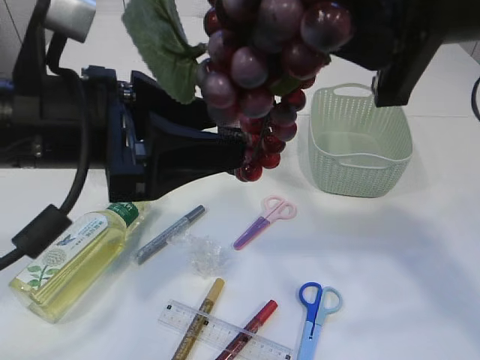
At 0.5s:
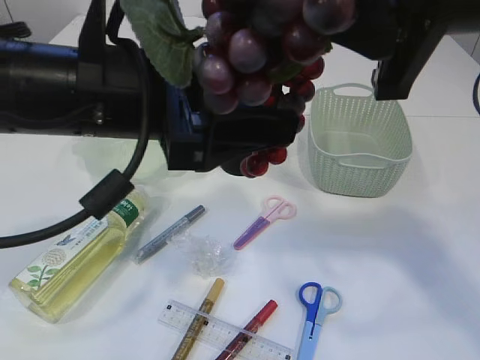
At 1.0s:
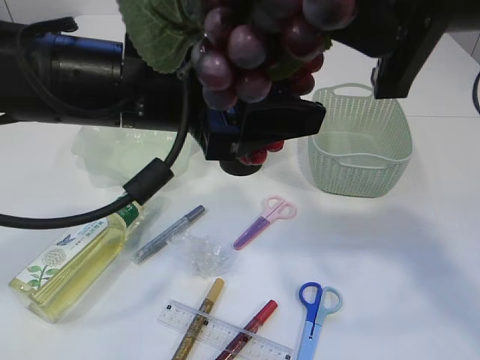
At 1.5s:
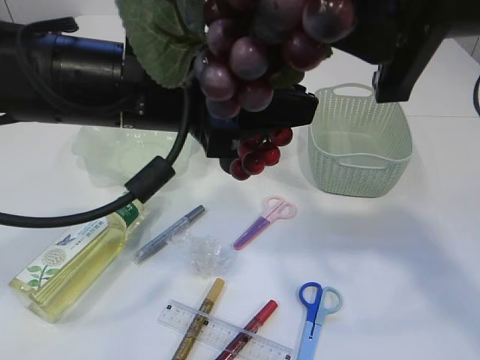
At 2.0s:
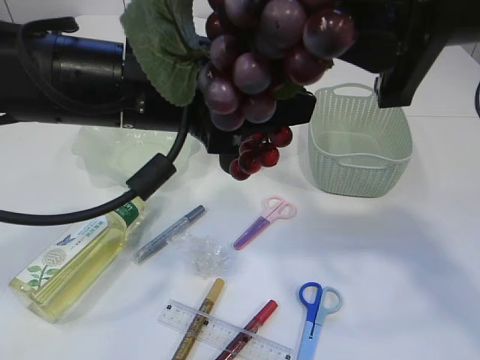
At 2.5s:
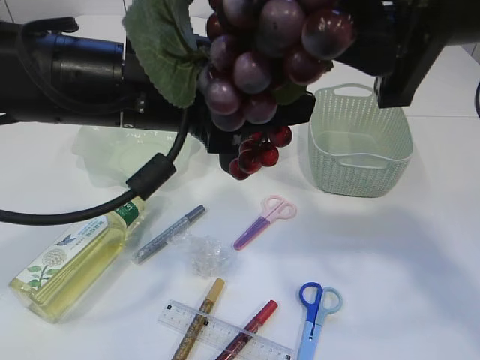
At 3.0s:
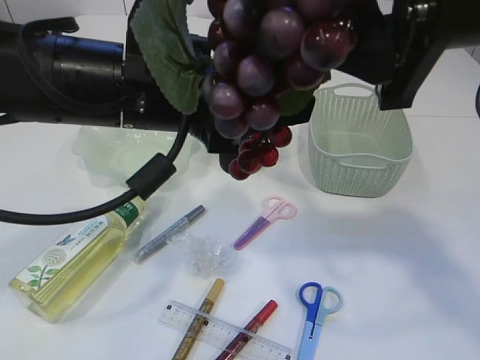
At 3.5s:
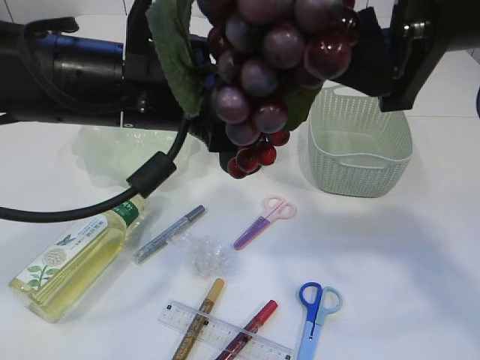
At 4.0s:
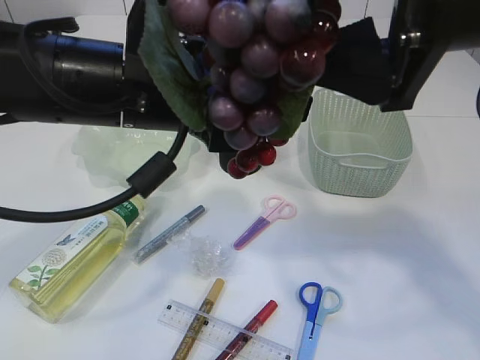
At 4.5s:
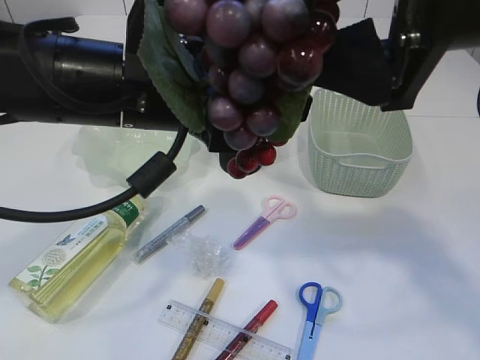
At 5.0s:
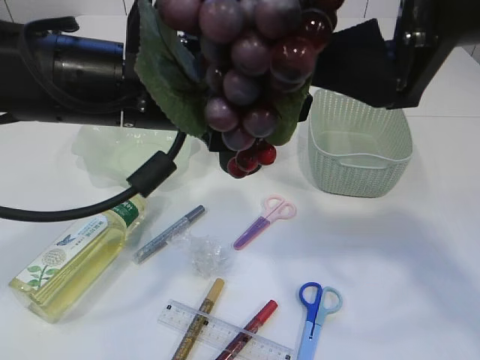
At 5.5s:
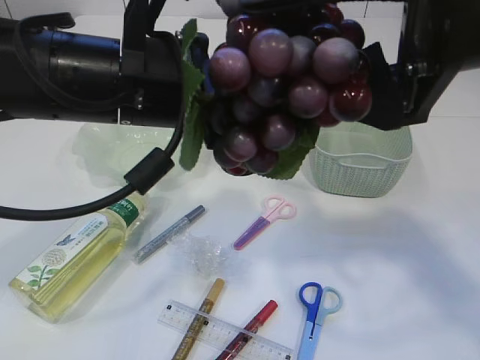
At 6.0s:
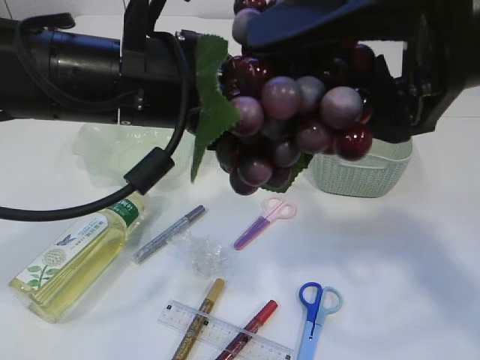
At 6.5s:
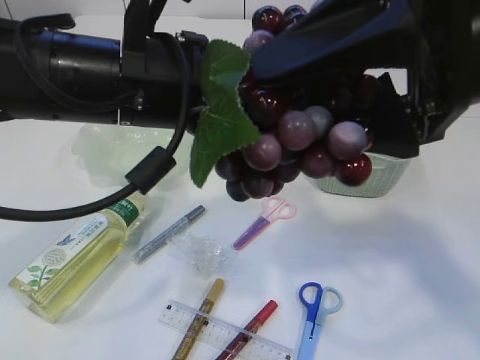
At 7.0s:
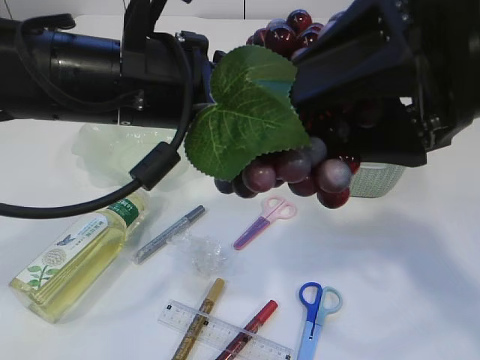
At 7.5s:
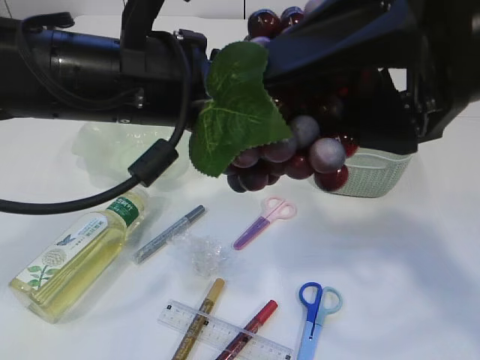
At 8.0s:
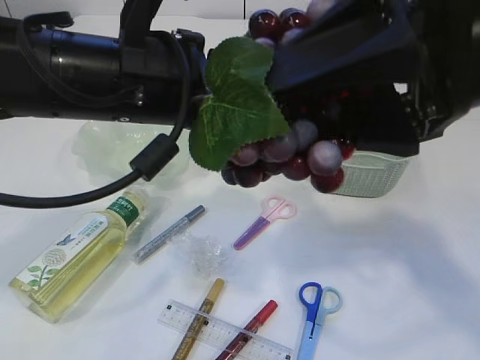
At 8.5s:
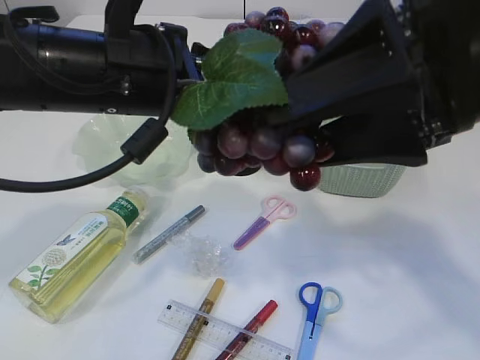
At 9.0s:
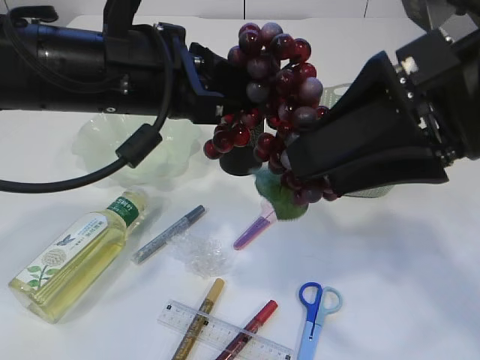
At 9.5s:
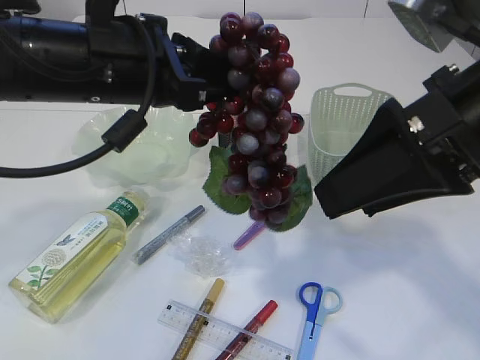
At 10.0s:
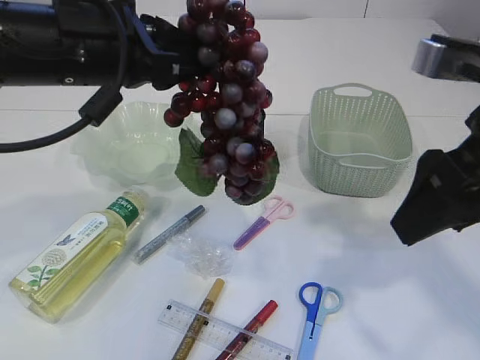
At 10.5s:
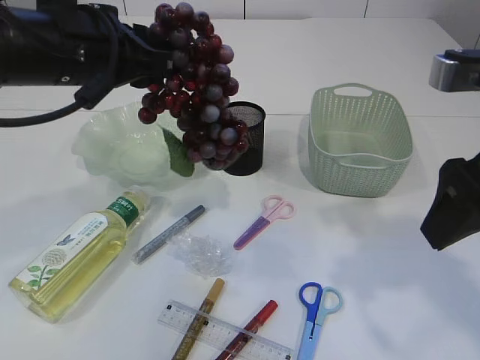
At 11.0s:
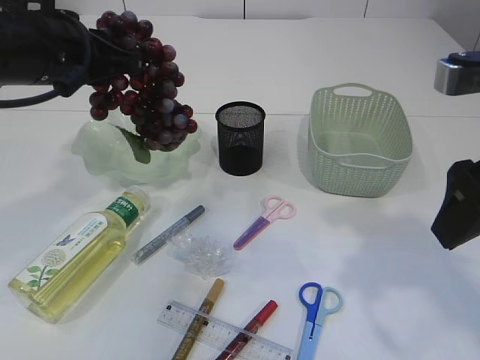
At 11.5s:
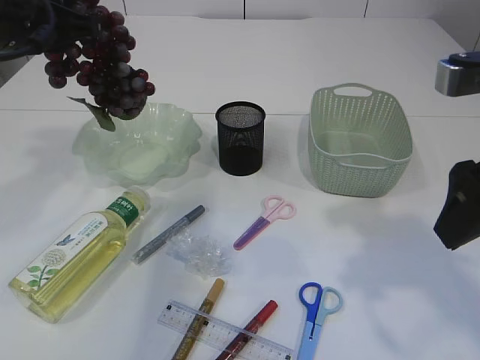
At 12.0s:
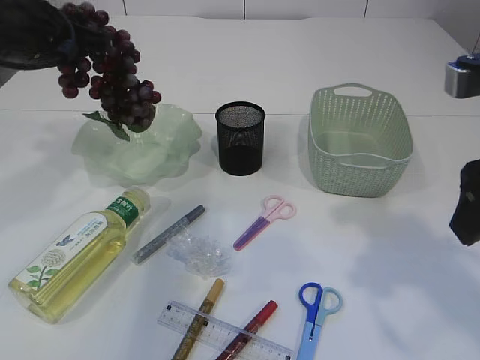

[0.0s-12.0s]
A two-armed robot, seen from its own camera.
Step, 0.0s to 9.5s: Hand over the grapes.
0.0s to 2.0s: The left gripper moves to the right, roughly 5 cm, and closes up.
2.0s to 4.0s: The right gripper opens its fingers.
4.0s to 8.0s: The grippers move only a little.
8.0s to 10.0s: The right gripper is displaced downward by some 5 cm; the left gripper shifts by some 5 cm.
10.0s to 12.0s: The left gripper travels forward and to the left by some 15 cm.

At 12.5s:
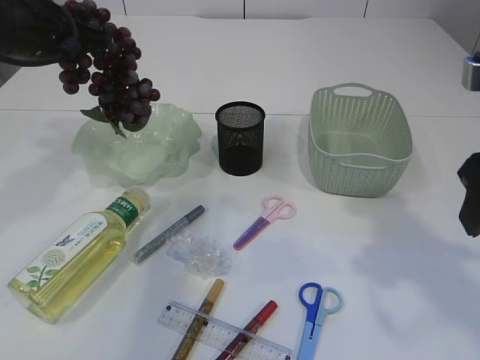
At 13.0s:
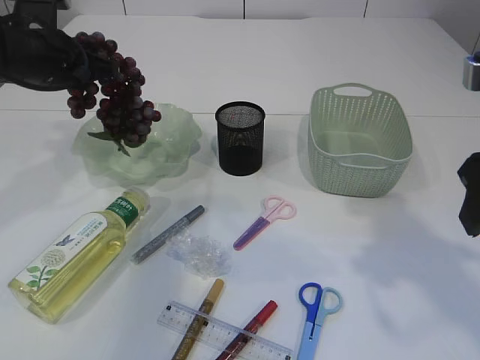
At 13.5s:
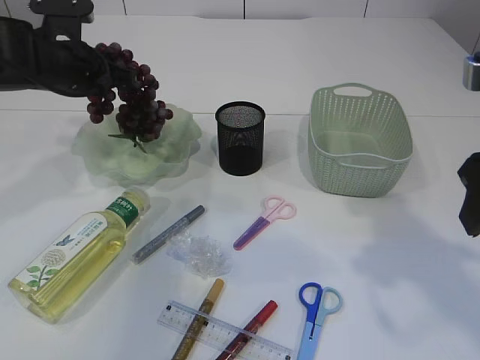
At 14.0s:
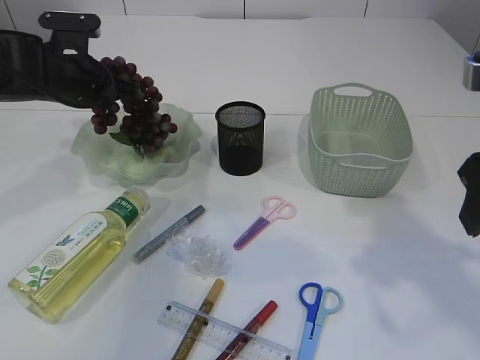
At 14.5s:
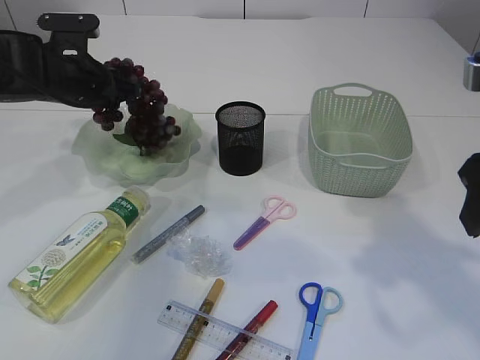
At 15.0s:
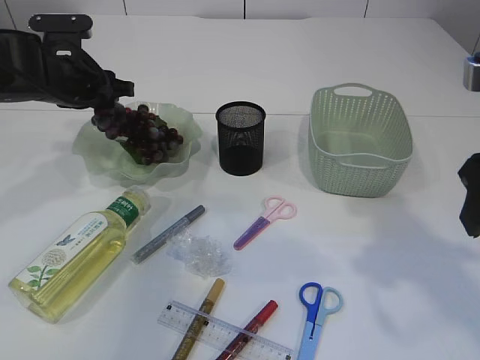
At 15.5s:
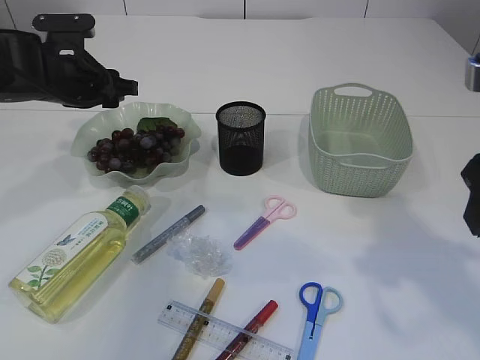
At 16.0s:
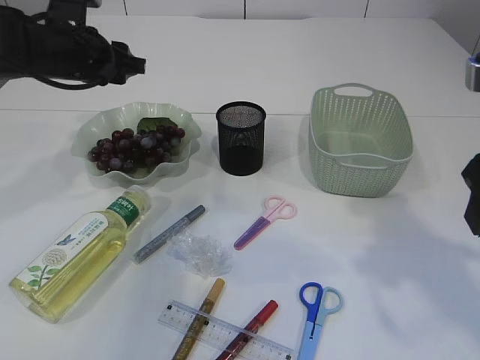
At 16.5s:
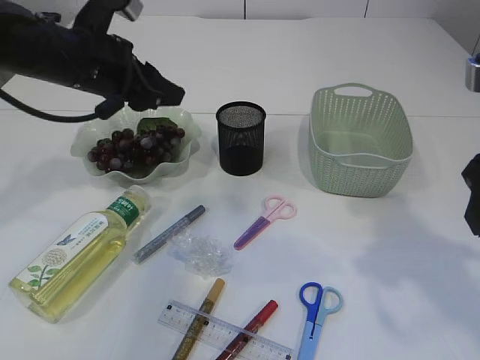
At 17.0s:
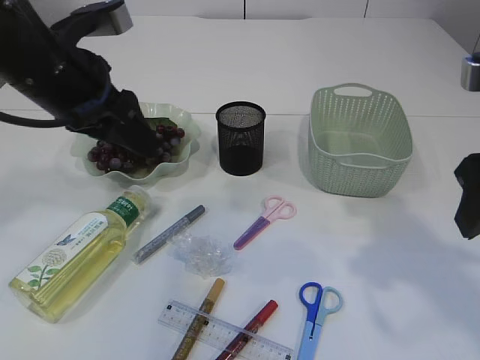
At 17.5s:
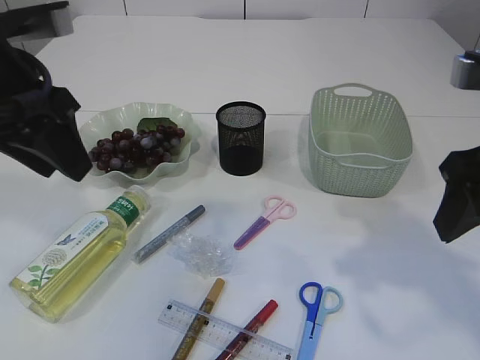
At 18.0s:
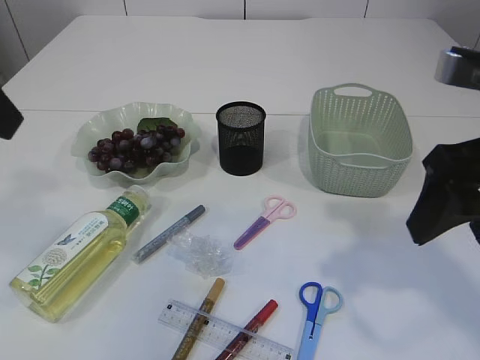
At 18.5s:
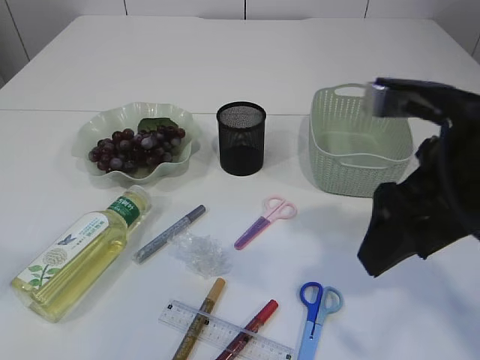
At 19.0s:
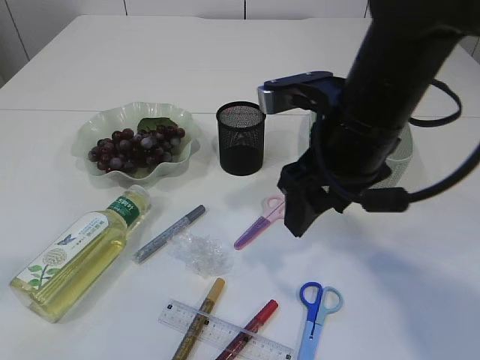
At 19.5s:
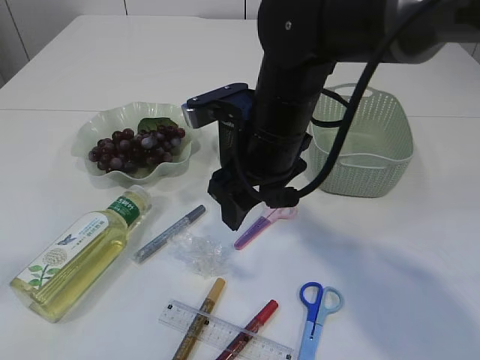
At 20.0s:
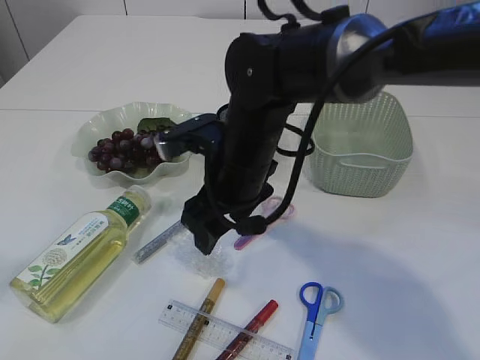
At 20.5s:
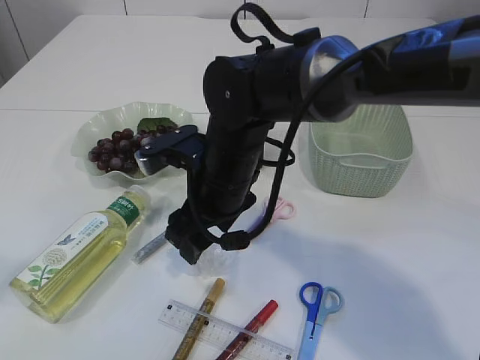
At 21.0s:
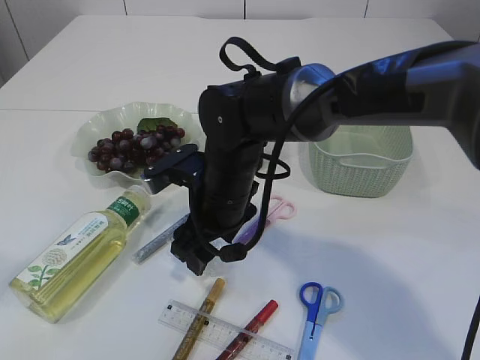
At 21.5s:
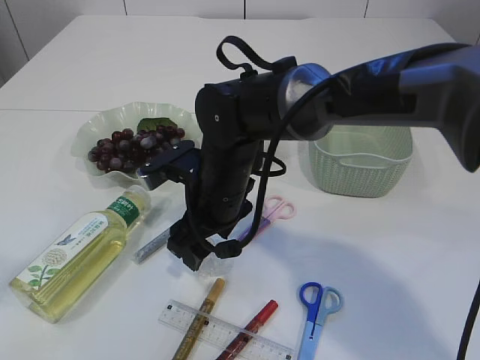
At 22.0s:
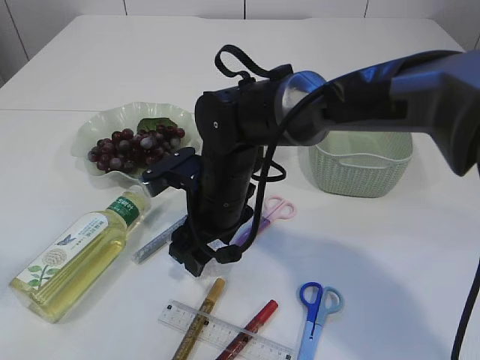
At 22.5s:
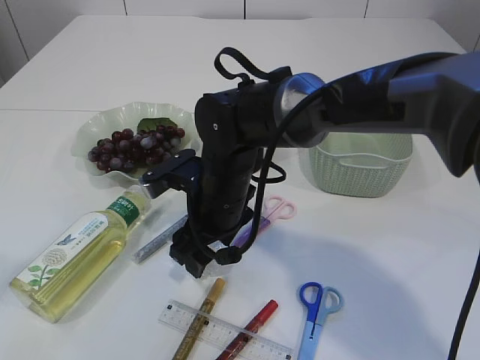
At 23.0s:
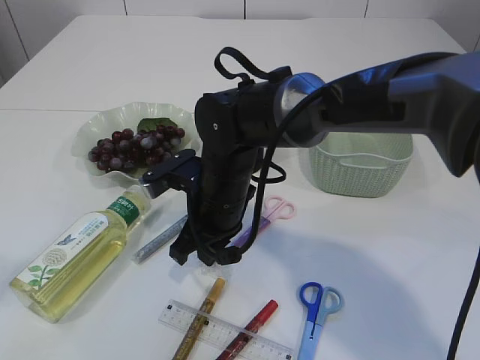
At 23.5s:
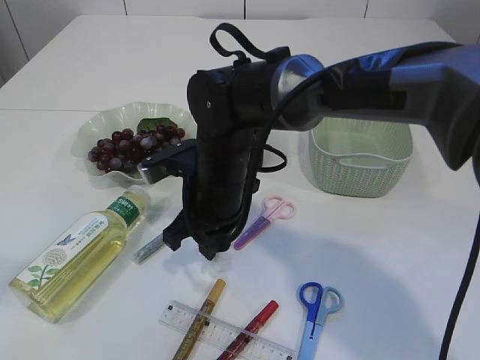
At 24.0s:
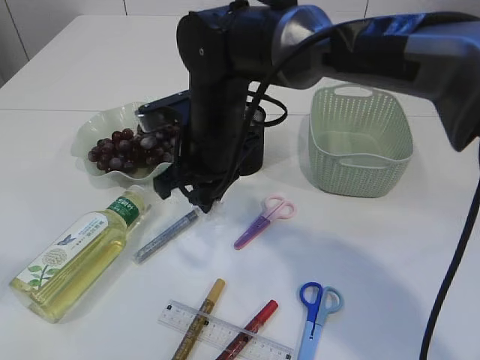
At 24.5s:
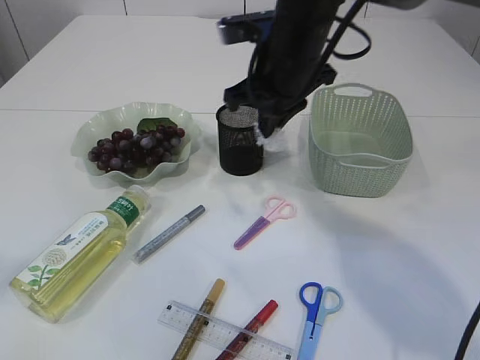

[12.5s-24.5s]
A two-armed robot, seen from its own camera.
Step, 12.5s to 17.5s: Place the grapes in the plate.
Step, 18.0s to 23.5s: Pick up the plastic.
12.5s to 14.5s: The left gripper moves downward, some 10 cm, and opens its fingers.
14.5s to 16.5s: The left gripper is displaced backward and upward by roughly 10 cm.
16.5s to 18.5s: The left gripper travels backward and upward by roughly 30 cm, while the right gripper is displaced to the left by approximately 5 cm.
18.5s to 20.5s: The right gripper is displaced to the left, forward and downward by roughly 25 cm.
20.5s to 22.5s: The grippers stay close to where they were, moving slightly.
22.5s to 24.5s: The right gripper goes some 15 cm upward, to the right and forward, and closes.

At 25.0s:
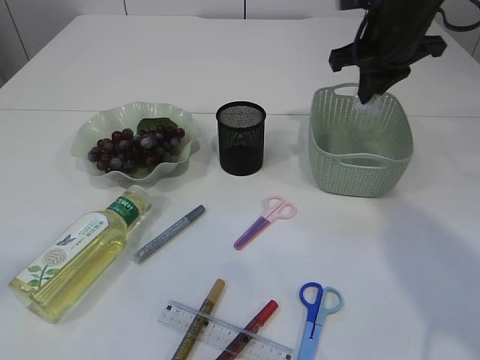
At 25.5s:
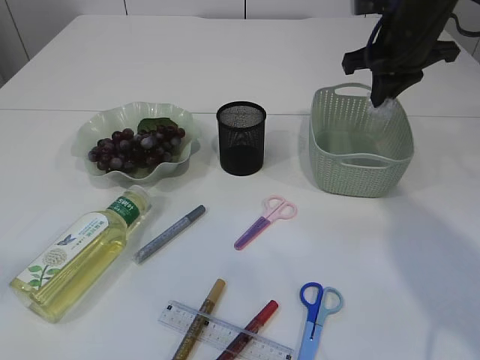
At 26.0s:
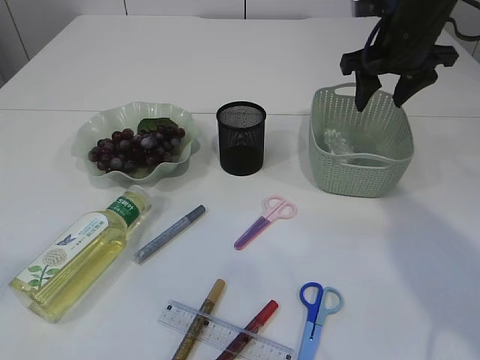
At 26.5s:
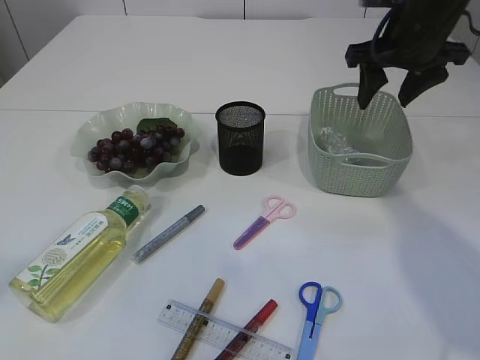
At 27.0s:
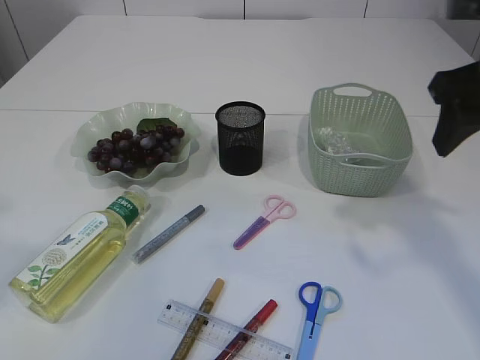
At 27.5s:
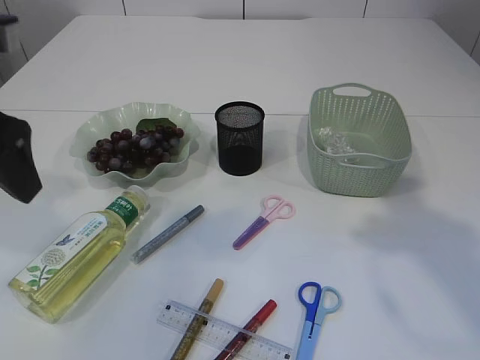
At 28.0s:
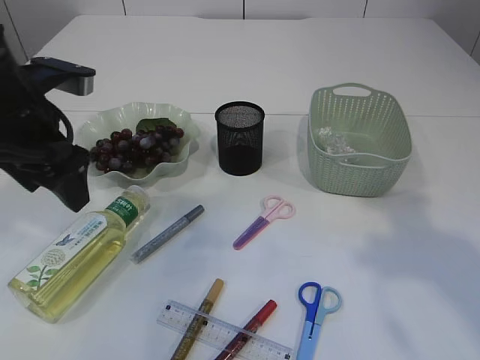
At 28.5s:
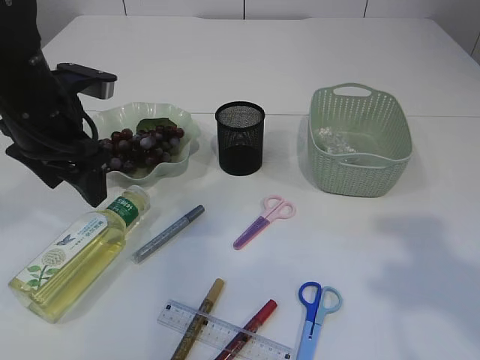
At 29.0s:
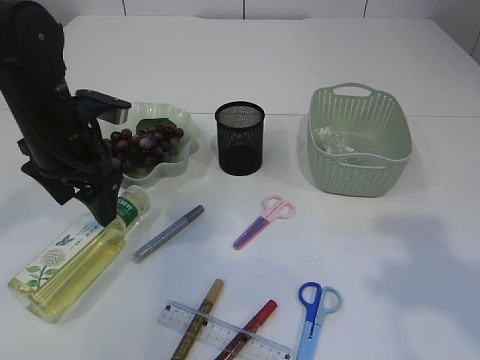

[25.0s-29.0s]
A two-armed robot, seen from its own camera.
Step, 25.0s to 26.5s: Place the plastic in the basket.
25.0s to 27.0s: The right gripper shifts some 15 cm backward, and opens.
27.0s to 29.0s: The left gripper shifts approximately 30 cm downward and forward, while the right gripper moves backward, some 15 cm.
